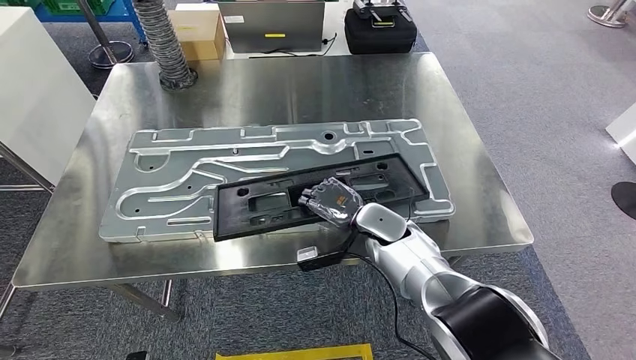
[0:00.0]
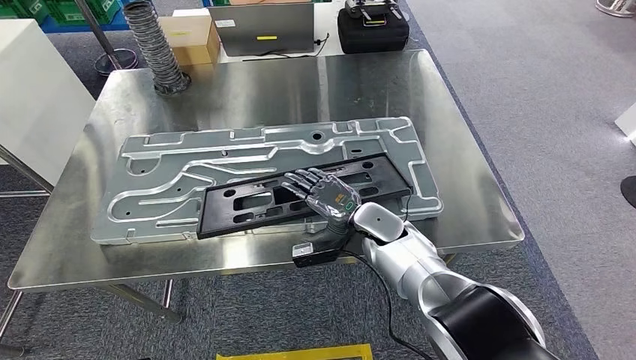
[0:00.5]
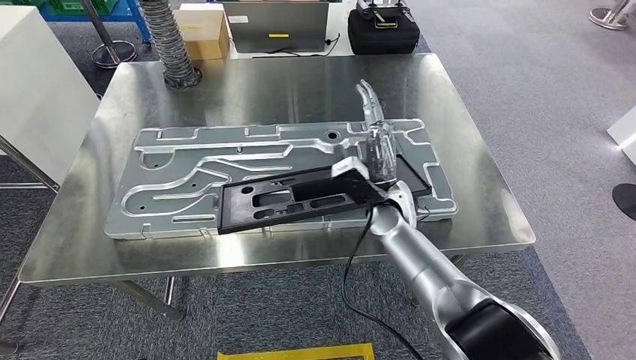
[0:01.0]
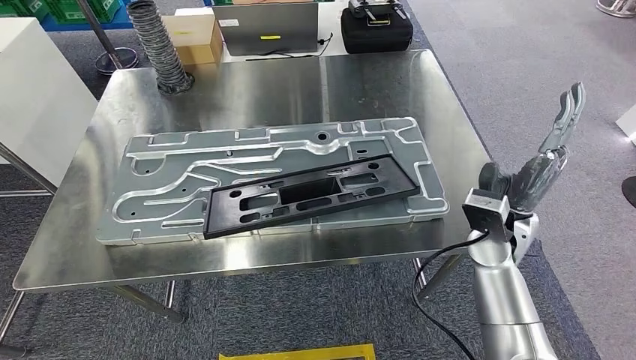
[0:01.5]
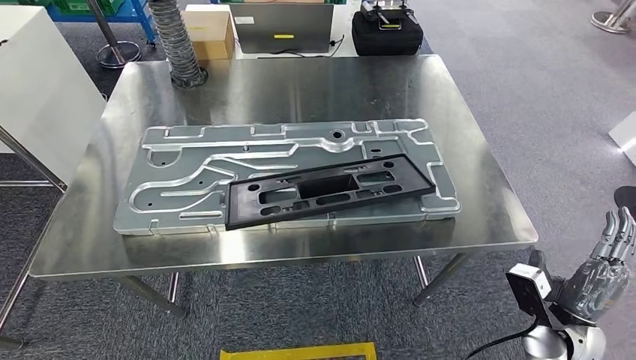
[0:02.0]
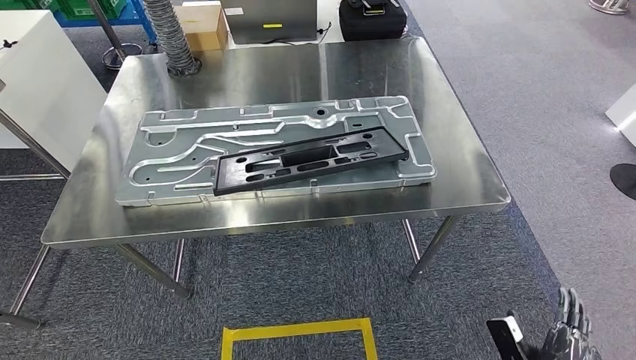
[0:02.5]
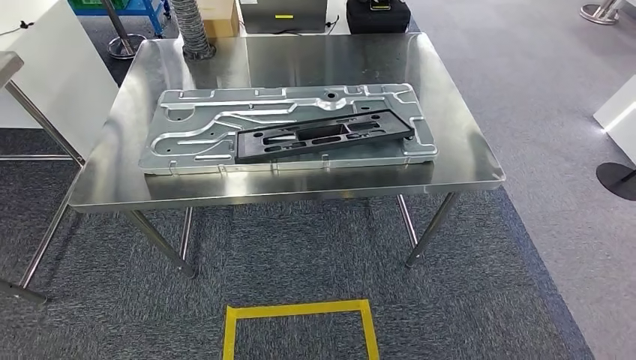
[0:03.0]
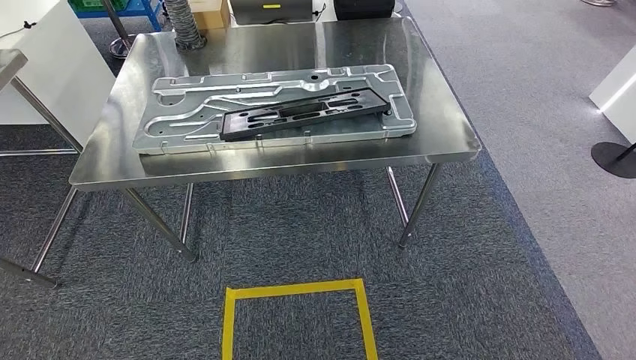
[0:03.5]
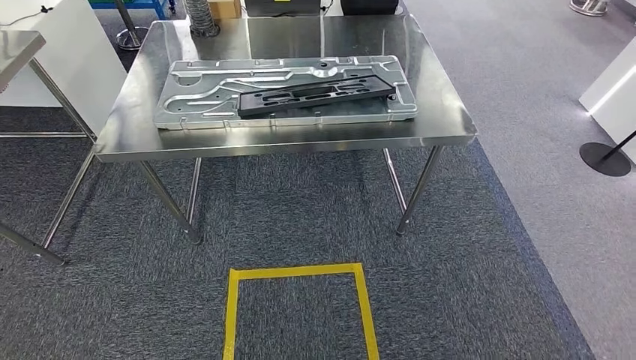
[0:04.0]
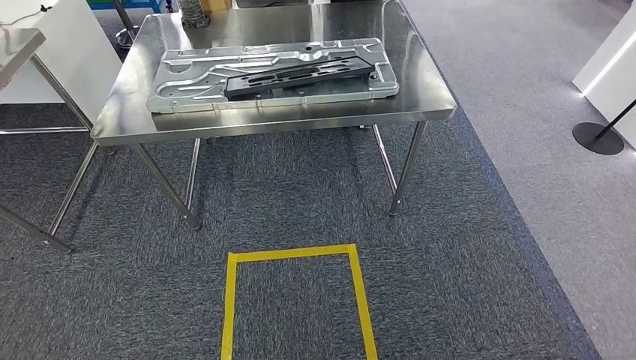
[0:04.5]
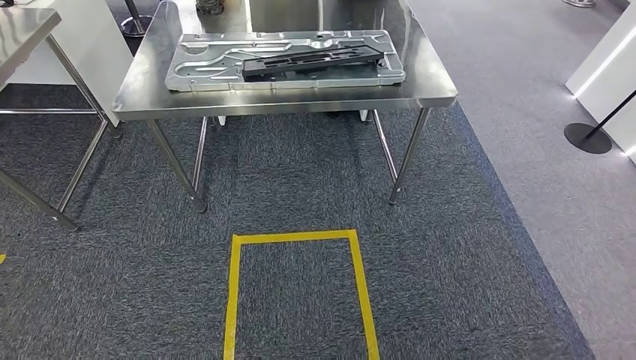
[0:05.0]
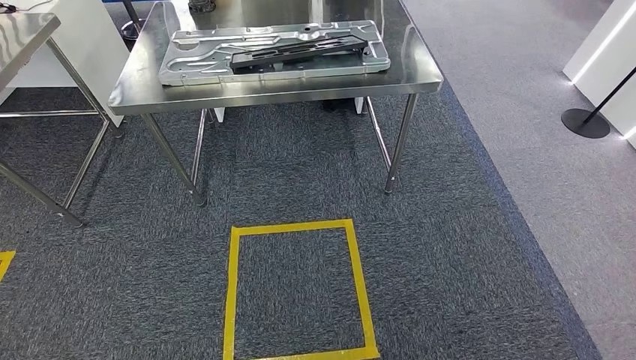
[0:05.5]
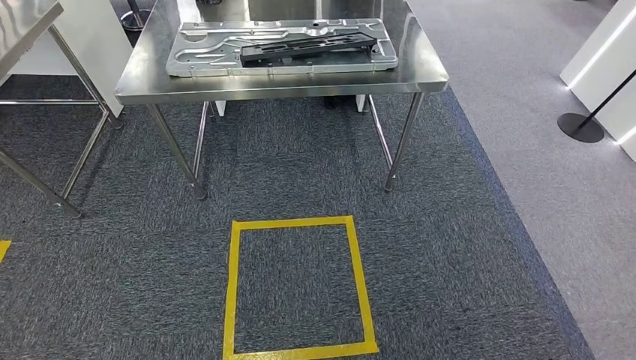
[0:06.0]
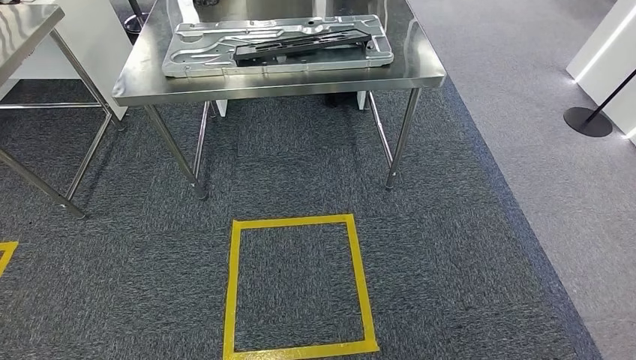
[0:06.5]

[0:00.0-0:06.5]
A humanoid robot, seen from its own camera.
Step, 0:00.0 to 0:02.0: Insert the large material into the corresponding hole on the workbench.
Step, 0:03.5 to 0:06.5: Move to the initial position of the shelf.
